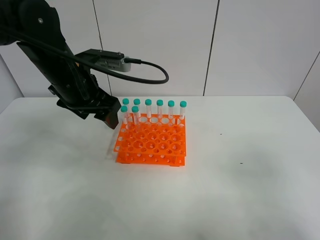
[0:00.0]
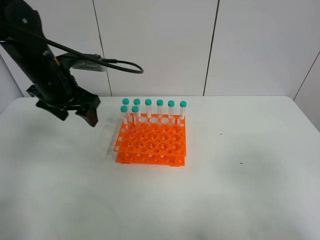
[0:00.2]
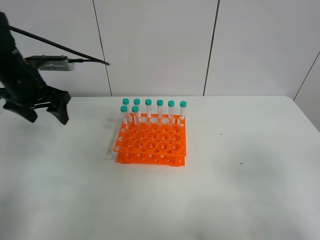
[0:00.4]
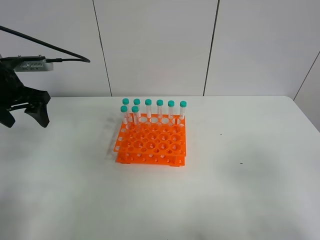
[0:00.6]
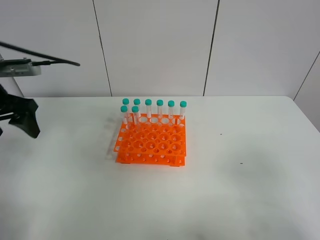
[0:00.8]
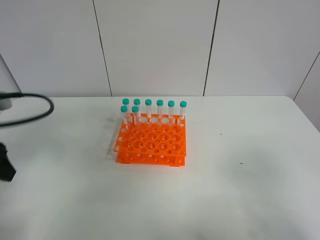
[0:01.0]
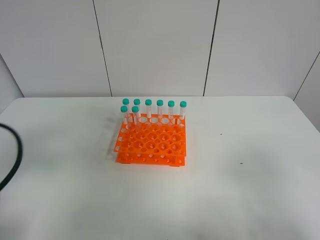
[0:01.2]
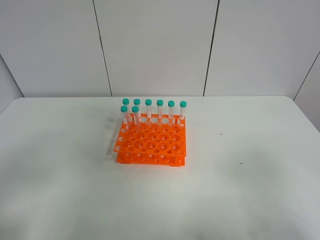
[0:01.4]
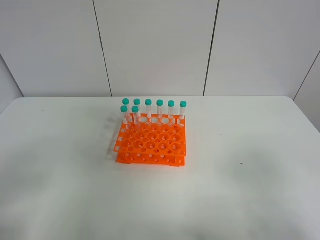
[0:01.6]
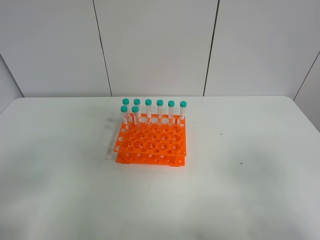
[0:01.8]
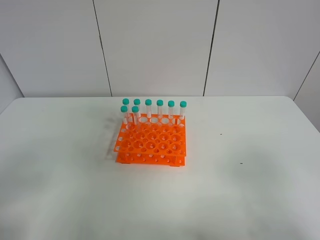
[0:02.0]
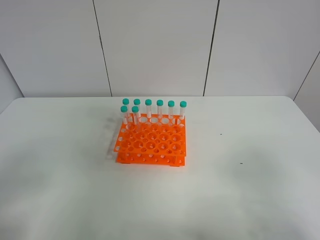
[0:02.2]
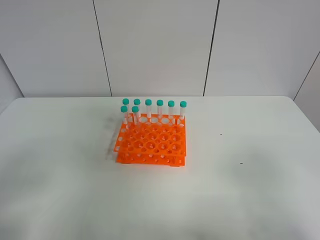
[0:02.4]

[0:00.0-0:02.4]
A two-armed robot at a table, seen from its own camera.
Task of the whole recording: Put the test tube on the table back onto the test tube rack.
0:00.0 to 0:01.2: The left gripper goes approximately 25 cm backward and to the left.
0:01.2 to 0:02.4: The left gripper moves backward, approximately 10 cm.
